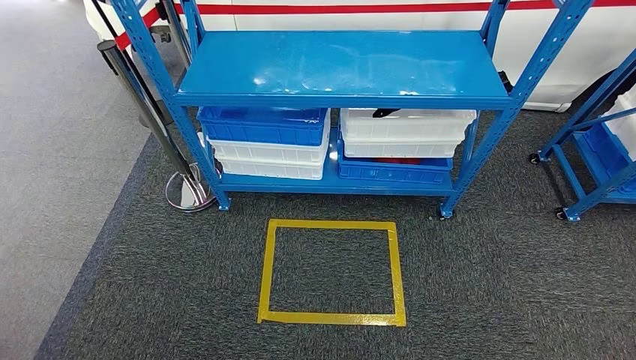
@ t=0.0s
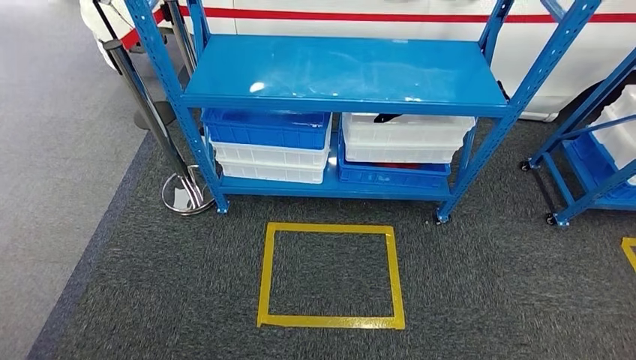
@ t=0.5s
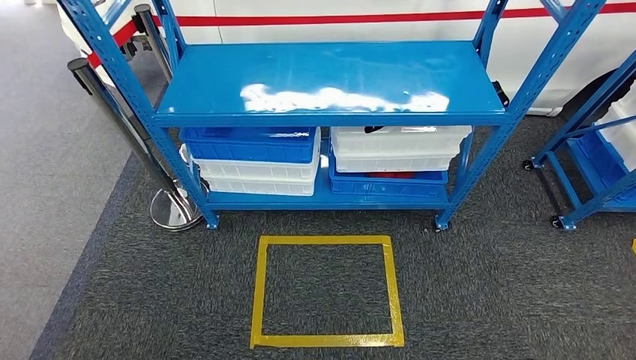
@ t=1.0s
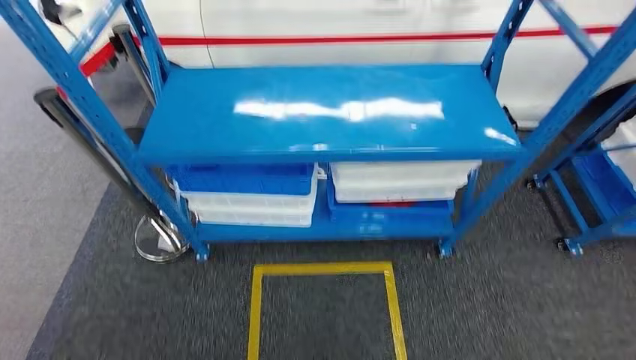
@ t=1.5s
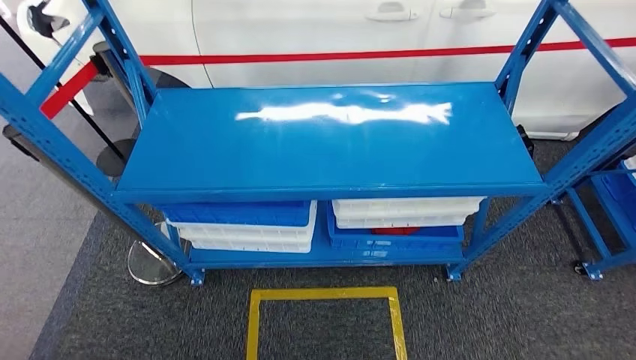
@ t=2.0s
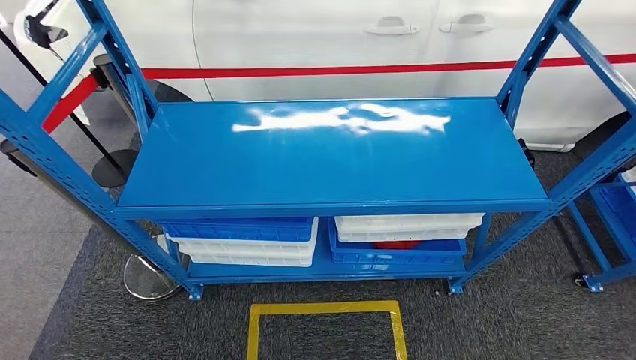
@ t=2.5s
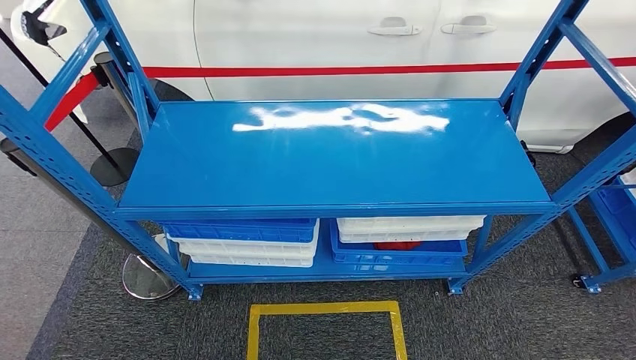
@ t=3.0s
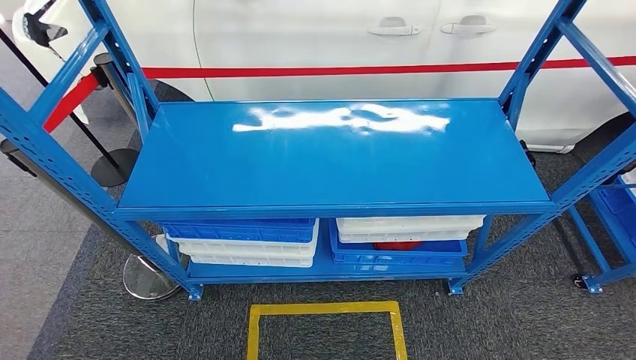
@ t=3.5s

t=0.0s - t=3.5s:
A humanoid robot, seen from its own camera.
Step, t=0.0s - t=3.5s: Return to the initial position at the shelf.
